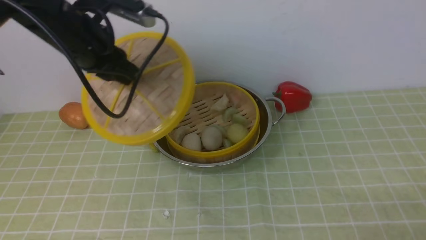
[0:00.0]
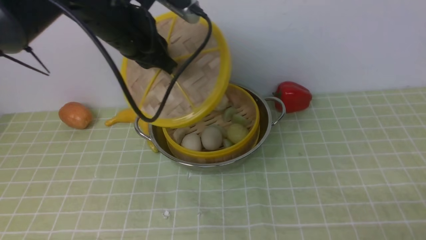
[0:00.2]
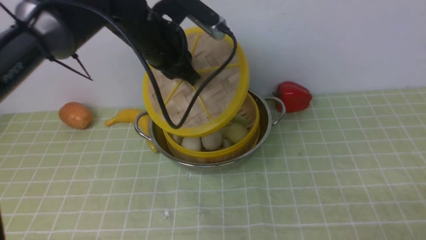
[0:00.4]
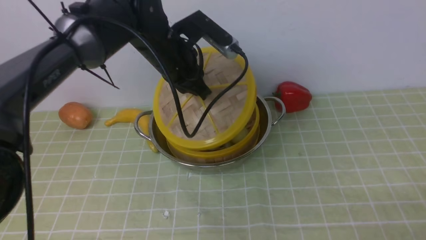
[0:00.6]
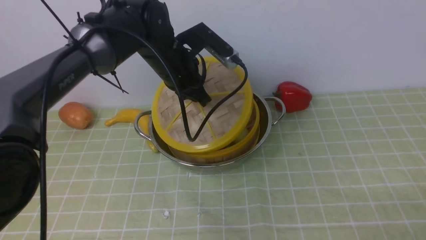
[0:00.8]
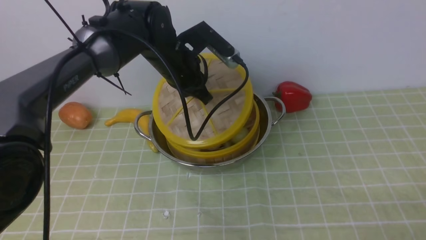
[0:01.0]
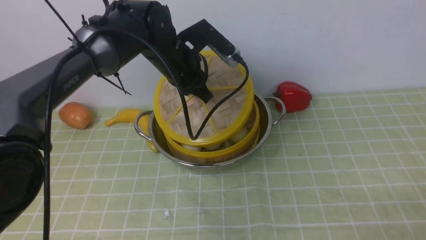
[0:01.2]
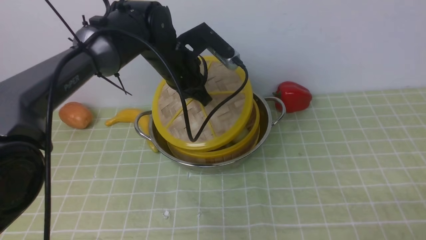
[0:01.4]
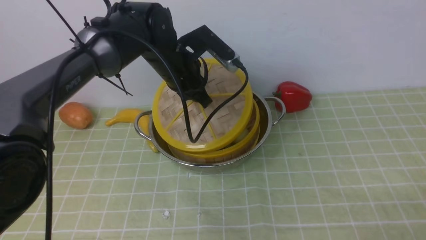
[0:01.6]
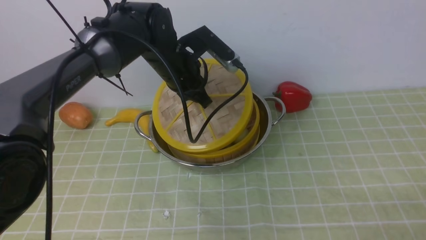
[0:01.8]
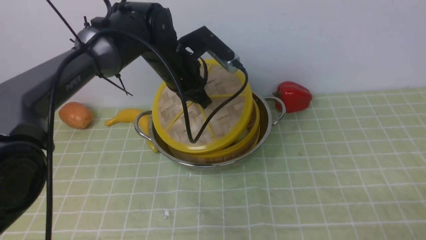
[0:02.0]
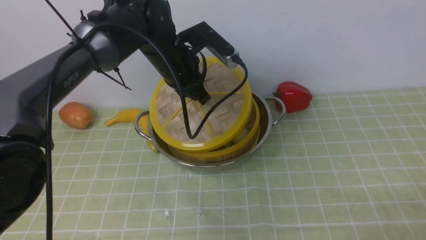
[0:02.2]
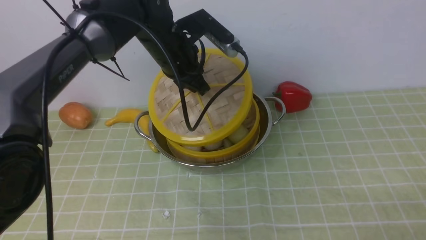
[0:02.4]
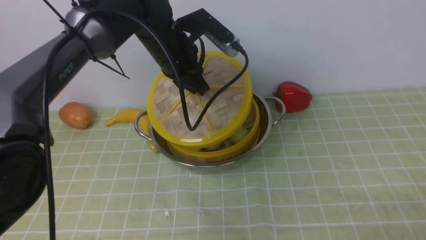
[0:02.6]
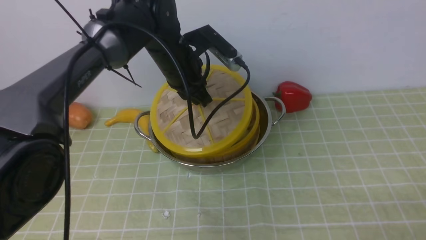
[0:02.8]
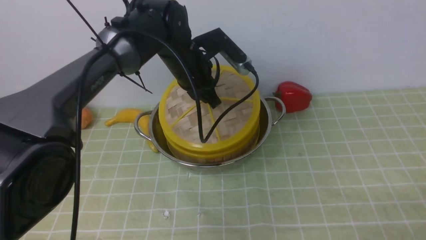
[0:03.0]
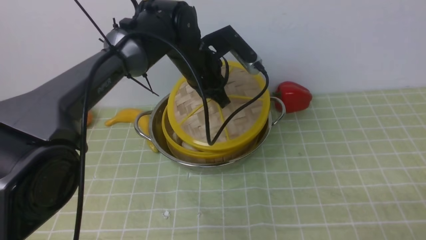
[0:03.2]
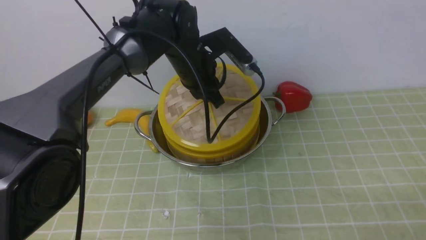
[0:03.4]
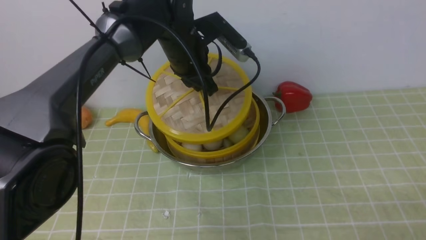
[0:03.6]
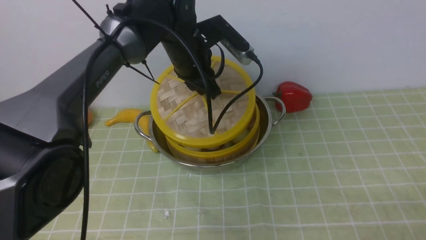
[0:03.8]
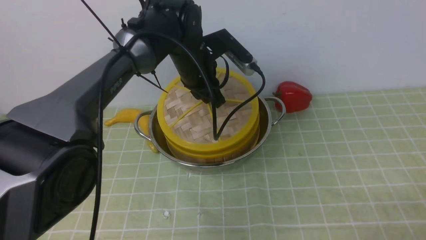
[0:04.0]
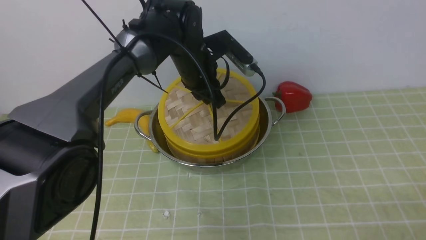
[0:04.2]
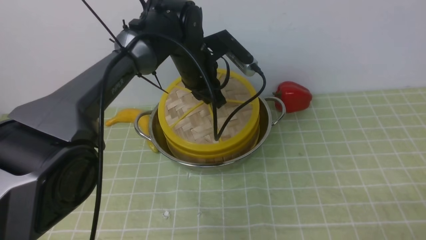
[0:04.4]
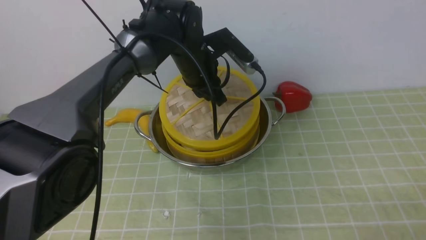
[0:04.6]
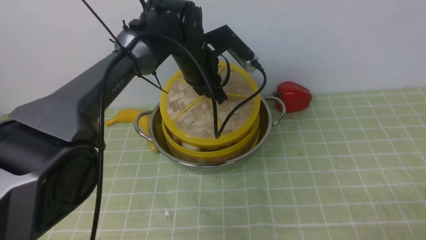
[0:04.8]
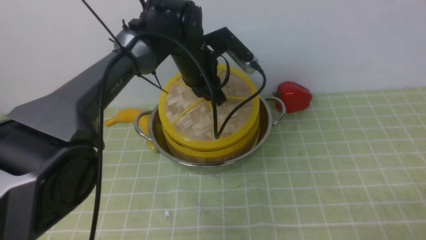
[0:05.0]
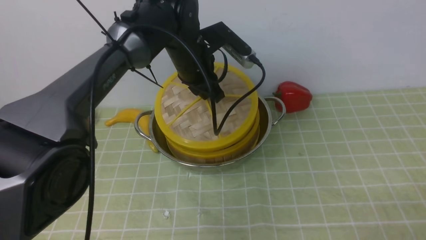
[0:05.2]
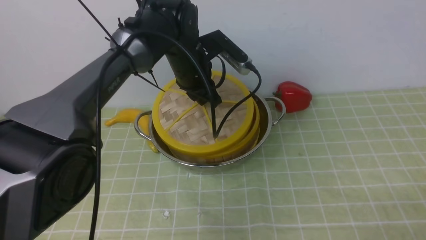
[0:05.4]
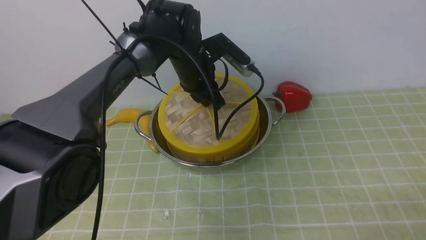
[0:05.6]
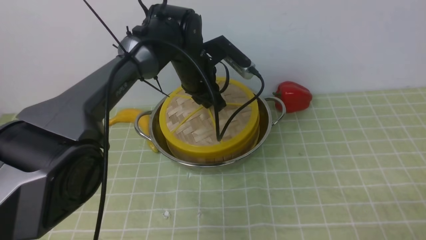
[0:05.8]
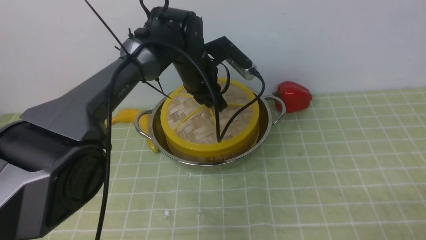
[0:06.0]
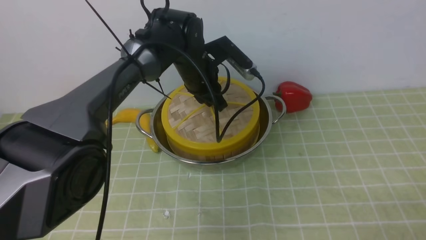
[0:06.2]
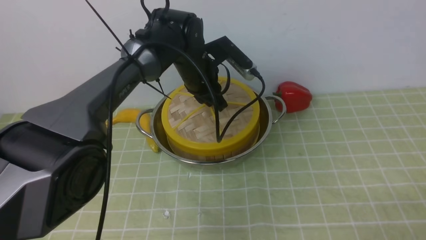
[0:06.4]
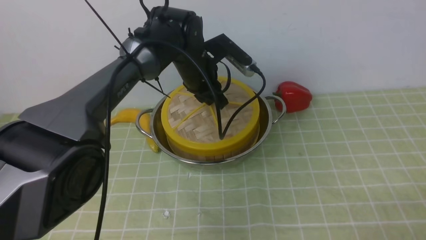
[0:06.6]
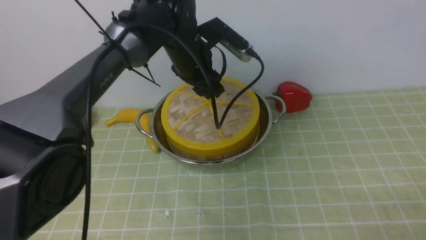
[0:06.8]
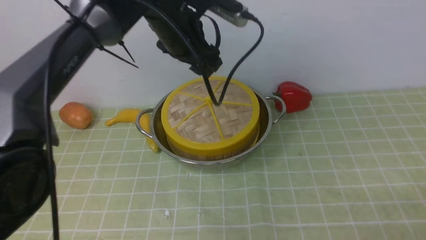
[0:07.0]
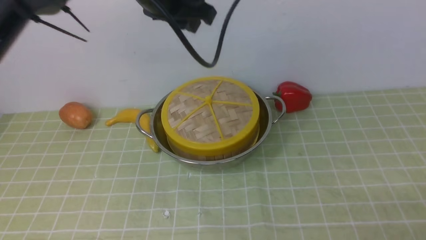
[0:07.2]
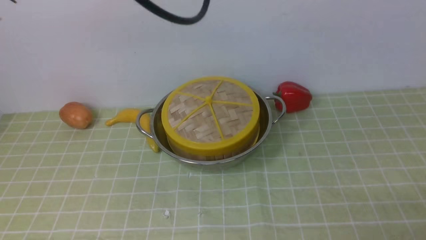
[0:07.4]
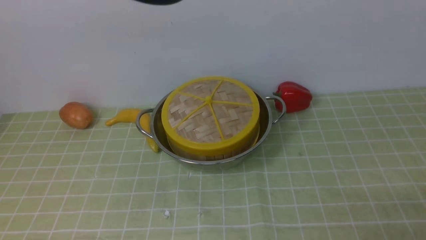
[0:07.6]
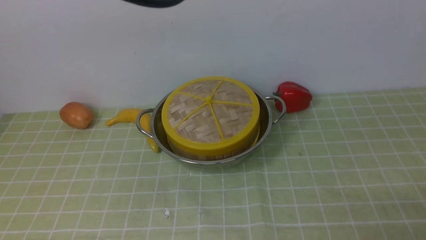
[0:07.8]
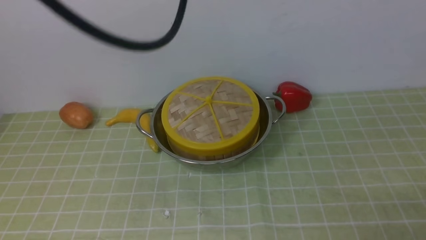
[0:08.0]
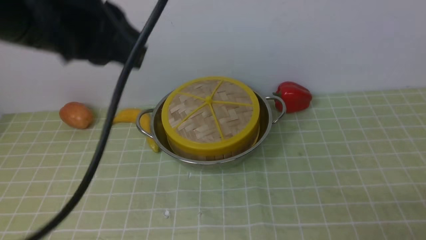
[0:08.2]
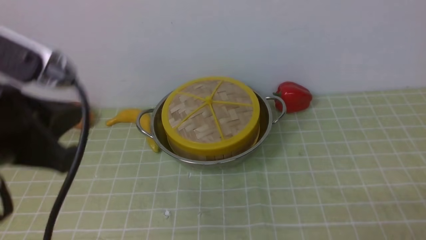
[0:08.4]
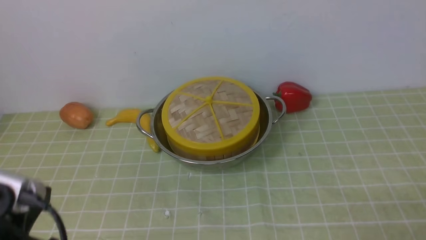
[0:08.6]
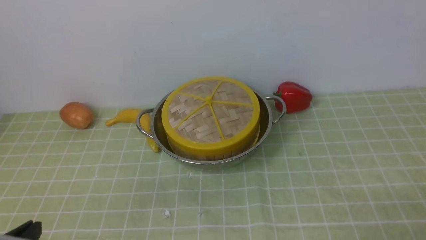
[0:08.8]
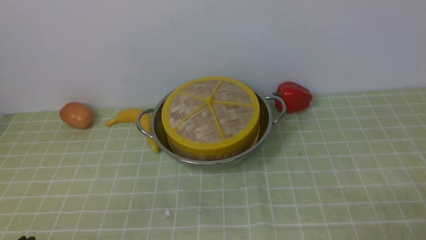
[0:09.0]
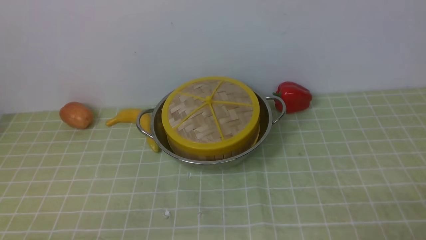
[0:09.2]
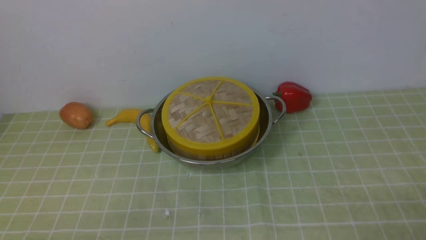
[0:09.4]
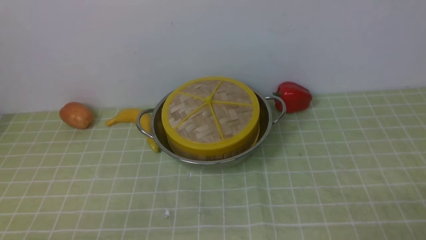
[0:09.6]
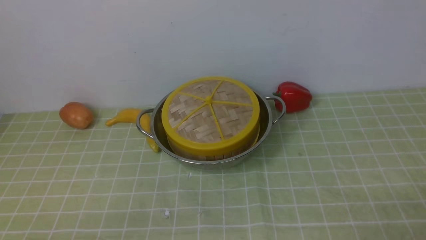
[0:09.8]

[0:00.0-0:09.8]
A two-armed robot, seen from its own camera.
Task of the whole recording: place the steamer in the pot on the green tablecloth, and put the lid on the steamer.
Step, 0:00.0 to 0:07.2: use the left arm to place the steamer lid on the steamer.
0:00.0 to 0:01.4: The left gripper is displaced to the right, downward and forward by roughly 15 cm.
0:01.4 to 0:02.8: The grippers make only small movements.
0:04.2 to 0:05.6: Both grippers stay about where they are.
0:05.6 to 0:07.0: The left gripper shifts some 10 cm upward, and opens.
0:07.0 to 0:08.4: The left gripper heads backward and to the left, covering approximately 30 cm, and closes.
0:08.4 to 0:09.8: The left gripper shifts about 20 cm downward and backward.

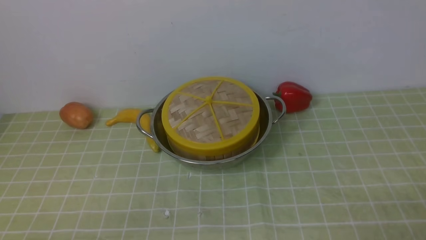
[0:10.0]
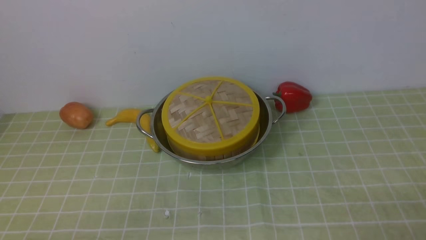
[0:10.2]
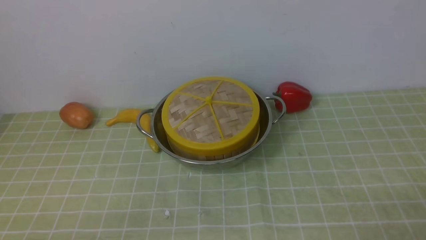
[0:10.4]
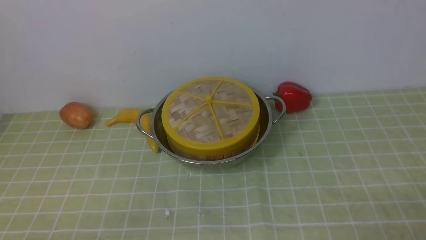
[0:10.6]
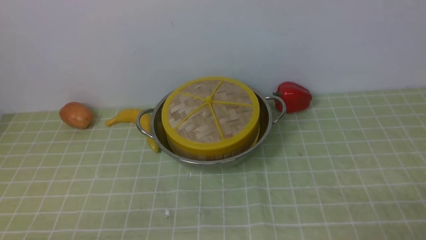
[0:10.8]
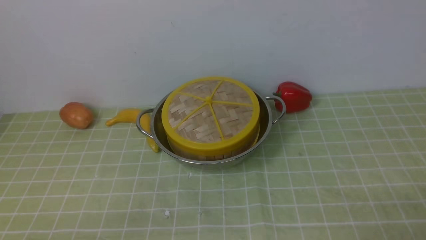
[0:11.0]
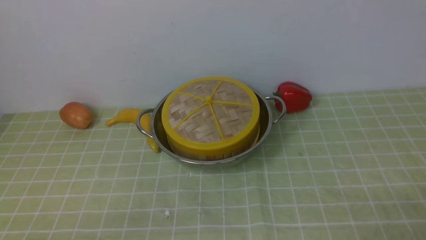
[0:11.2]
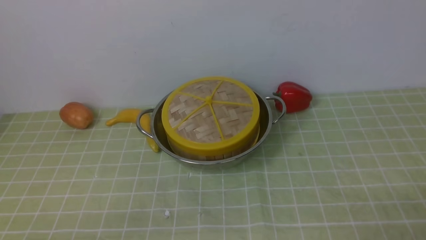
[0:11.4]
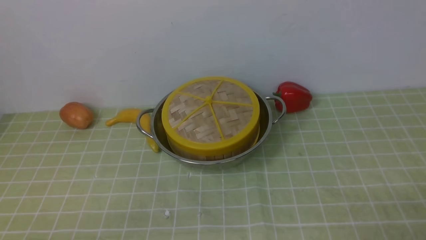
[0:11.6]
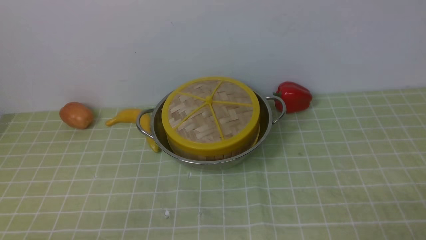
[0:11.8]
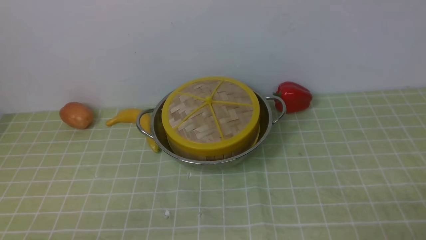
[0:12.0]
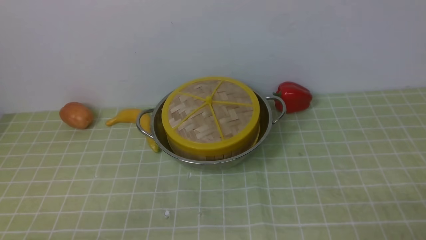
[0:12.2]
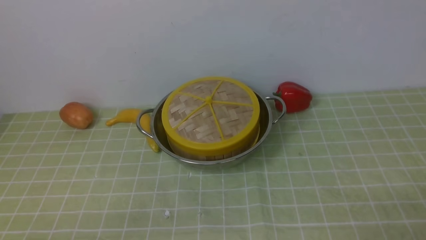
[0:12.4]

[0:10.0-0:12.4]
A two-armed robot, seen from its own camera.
Task of the whole recording: place the steamer in the pot on the green tablecloth, and put the lid on the steamer.
0:10.0 to 0:12.4: Both grippers stay put.
